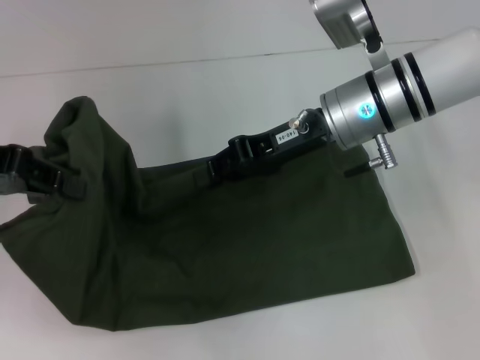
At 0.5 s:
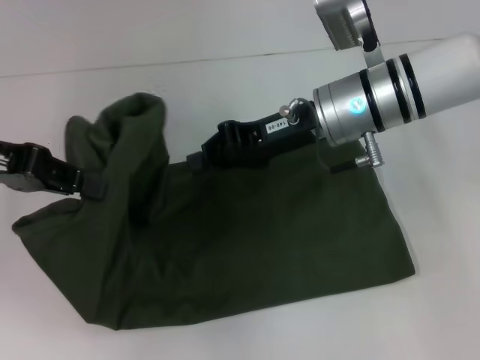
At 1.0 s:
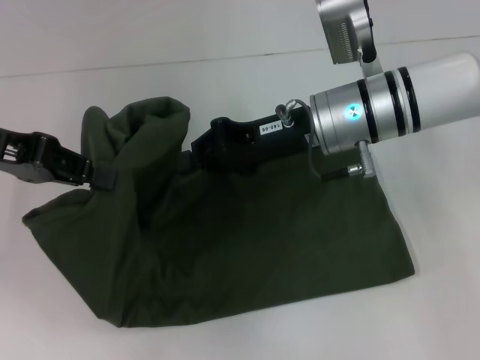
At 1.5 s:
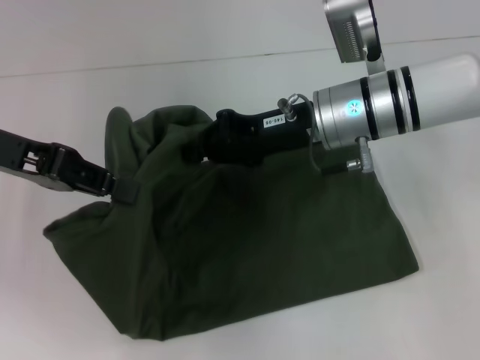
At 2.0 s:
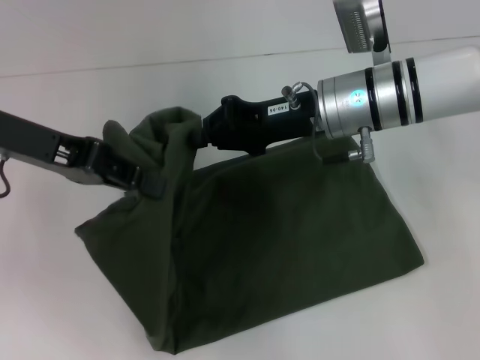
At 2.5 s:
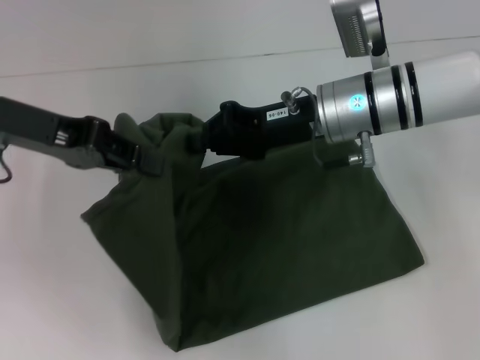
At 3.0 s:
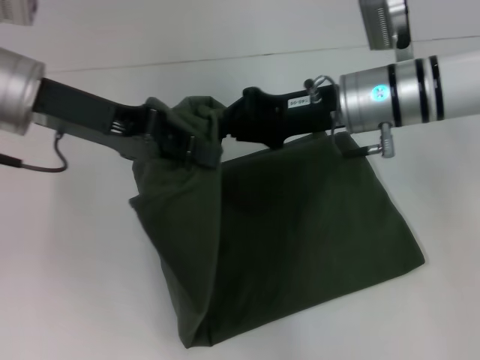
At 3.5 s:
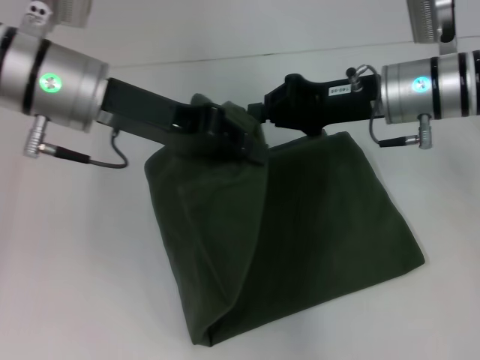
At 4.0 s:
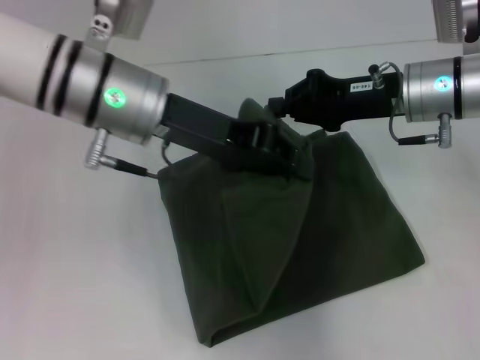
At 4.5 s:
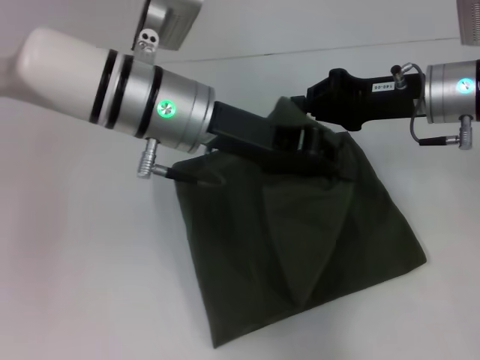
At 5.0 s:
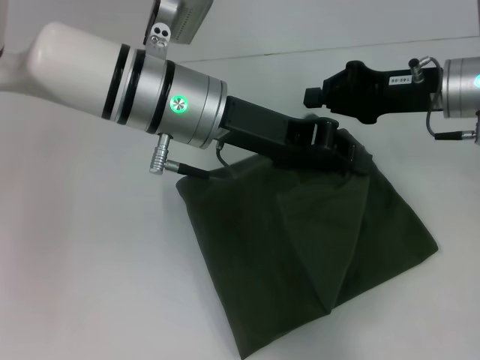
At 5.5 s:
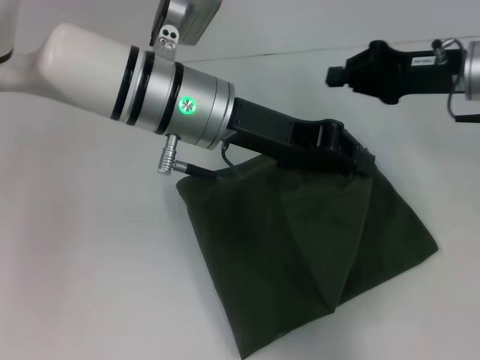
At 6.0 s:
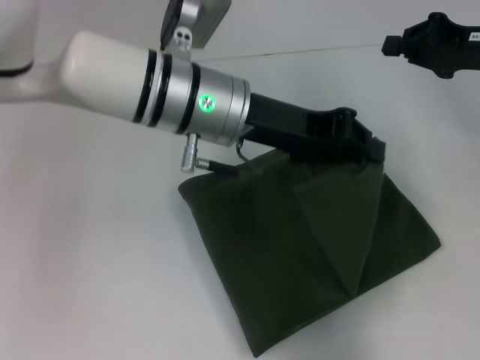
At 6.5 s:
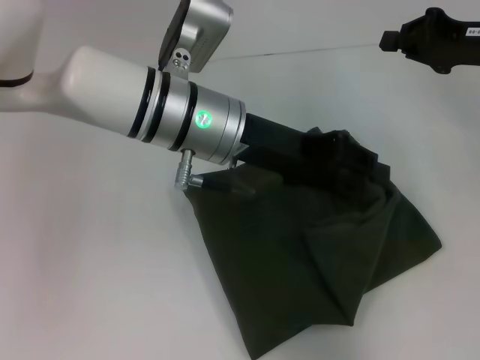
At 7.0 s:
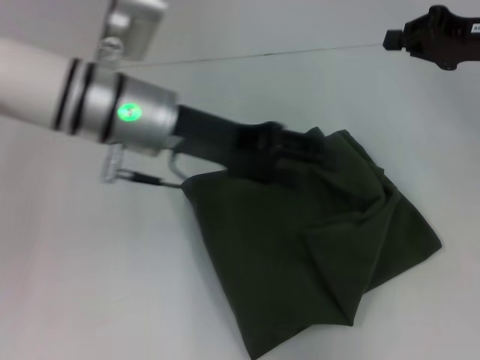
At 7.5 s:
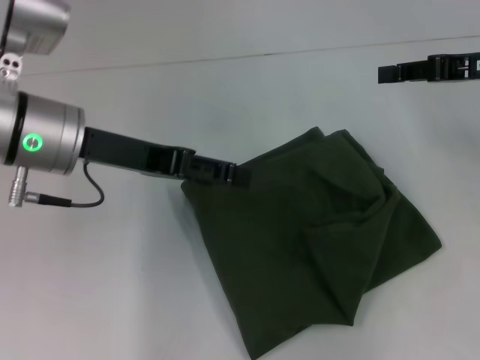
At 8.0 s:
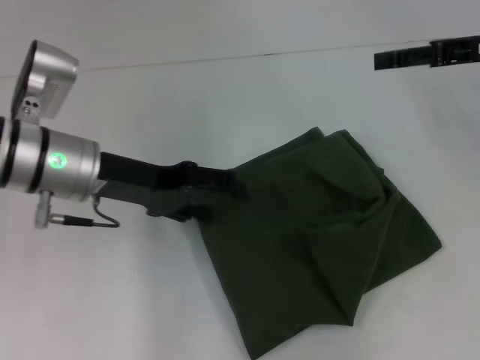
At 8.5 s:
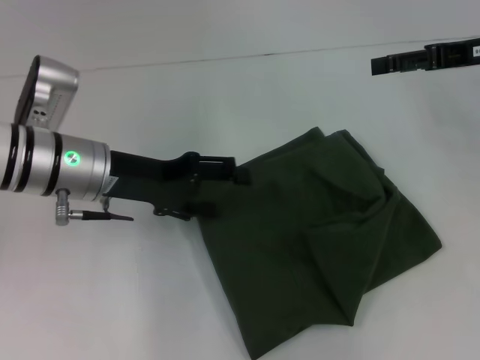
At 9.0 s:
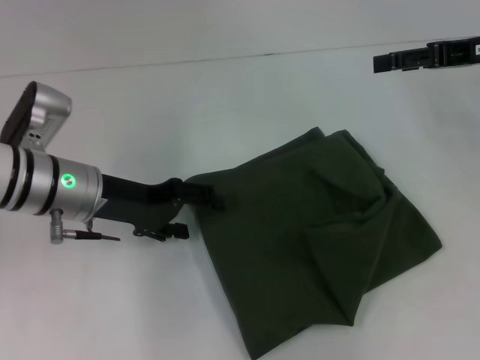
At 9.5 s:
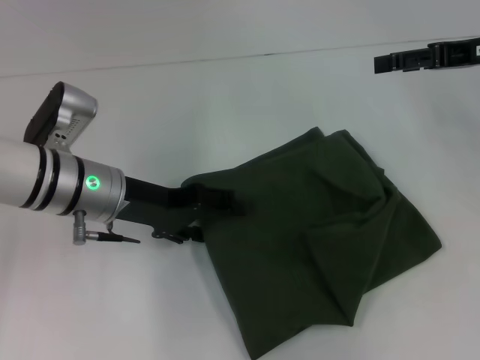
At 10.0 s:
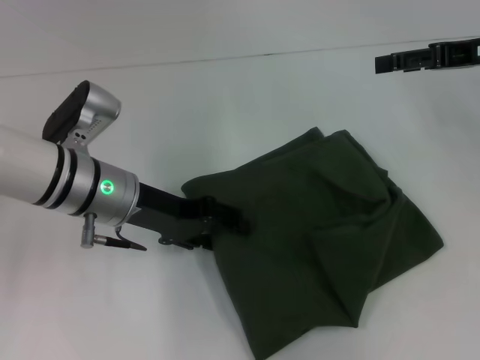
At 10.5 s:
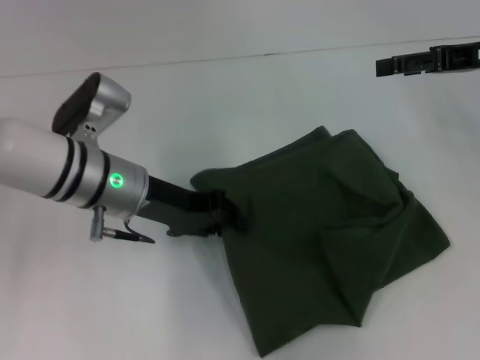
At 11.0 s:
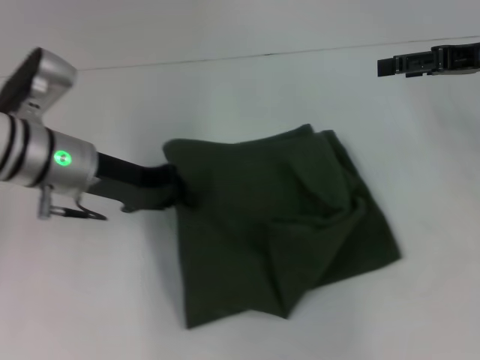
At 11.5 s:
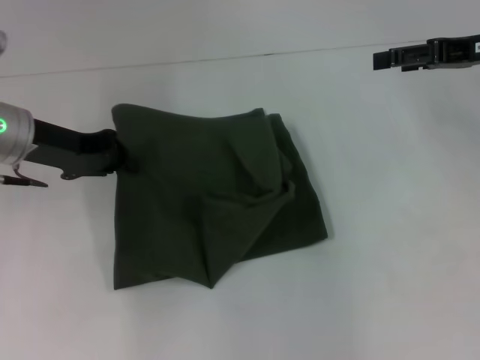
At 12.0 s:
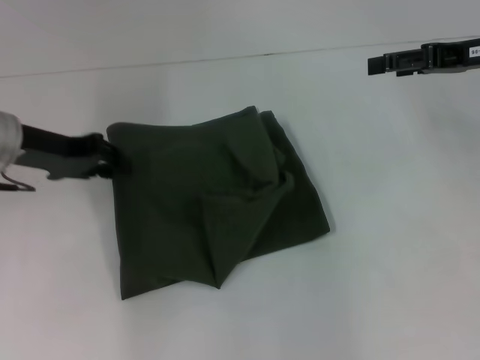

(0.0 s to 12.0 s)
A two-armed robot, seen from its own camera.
Step, 0.0 s - 6.5 s: Fold the clothes with your left hand.
0.0 s - 2.0 s: The left gripper shifts about 5 cm to the right, while the right gripper closes.
2.0 s - 4.0 s: The left gripper is displaced to the right by some 15 cm, while the right gripper travels to the right by approximately 10 cm.
4.0 s - 6.0 s: The right gripper shifts some 10 cm to the right; the left gripper goes some 5 cm to the right.
6.0 s - 8.0 s: The right gripper opens up, while the left gripper is displaced to the left by about 15 cm, and opens its fingers.
8.0 s - 10.0 s: The grippers stay close to where they were, moving slightly.
10.0 s - 12.0 s: The left gripper goes approximately 10 cm to the left, and closes.

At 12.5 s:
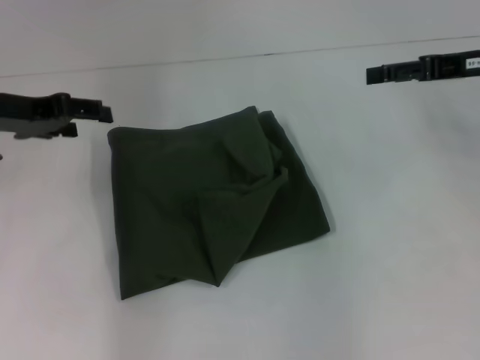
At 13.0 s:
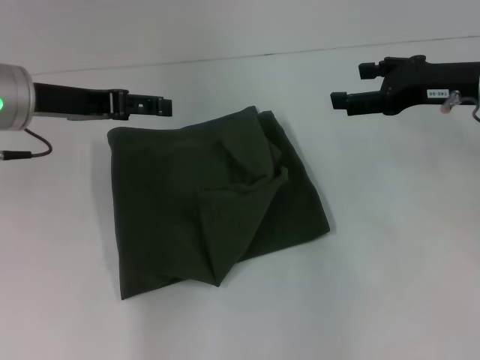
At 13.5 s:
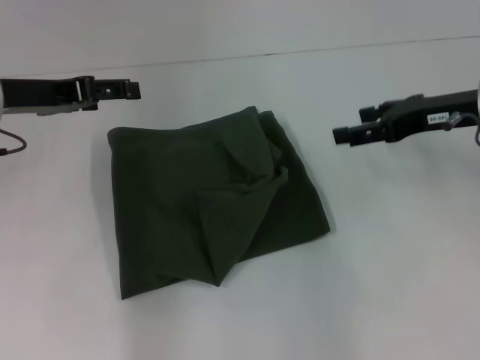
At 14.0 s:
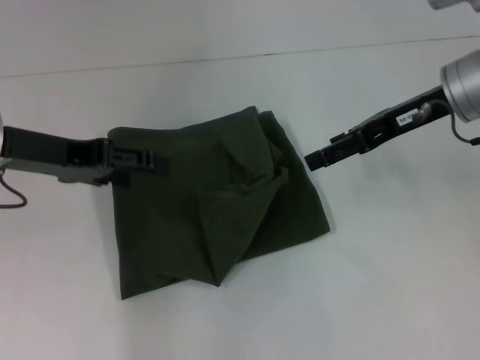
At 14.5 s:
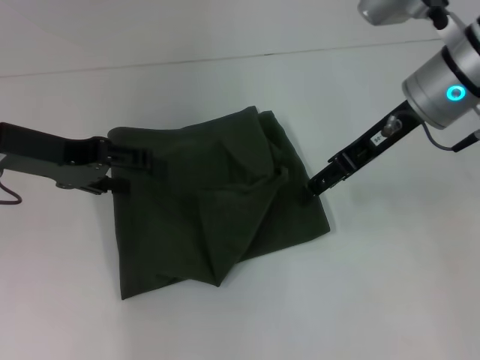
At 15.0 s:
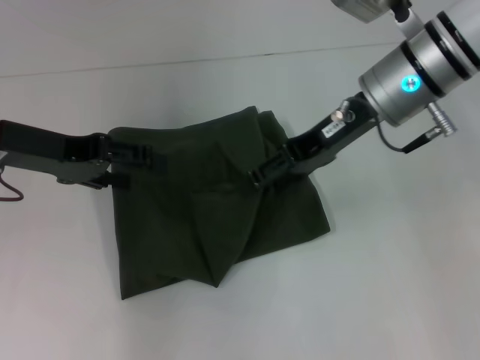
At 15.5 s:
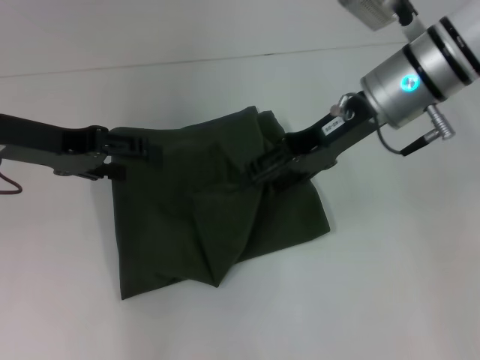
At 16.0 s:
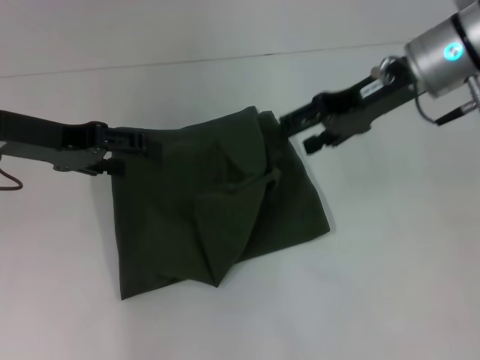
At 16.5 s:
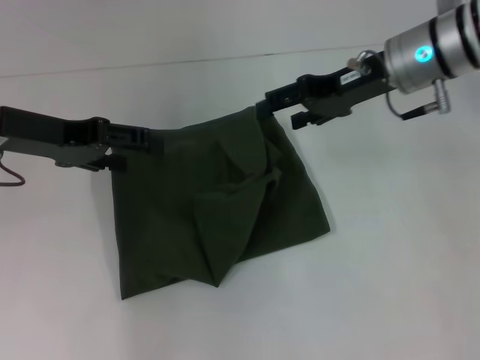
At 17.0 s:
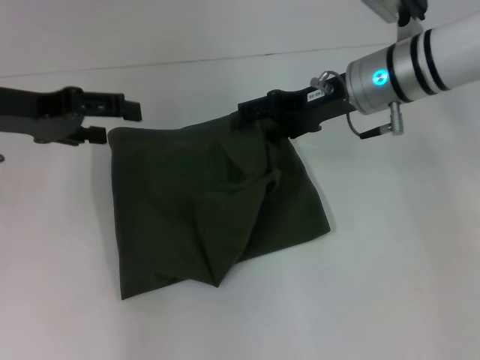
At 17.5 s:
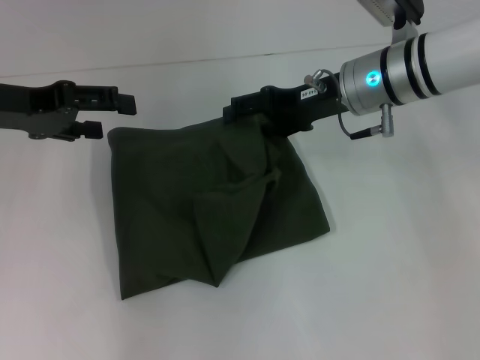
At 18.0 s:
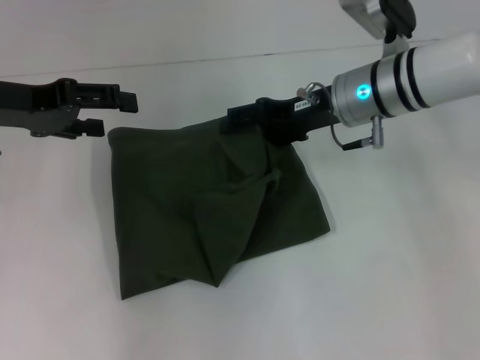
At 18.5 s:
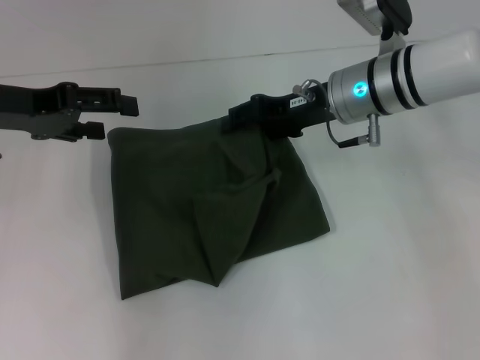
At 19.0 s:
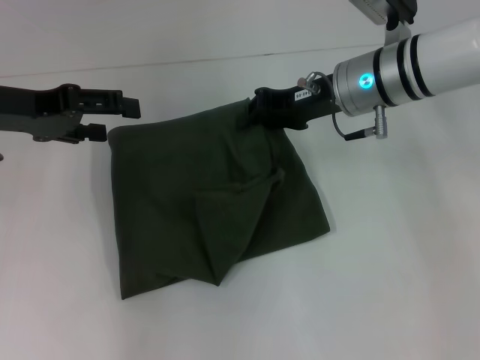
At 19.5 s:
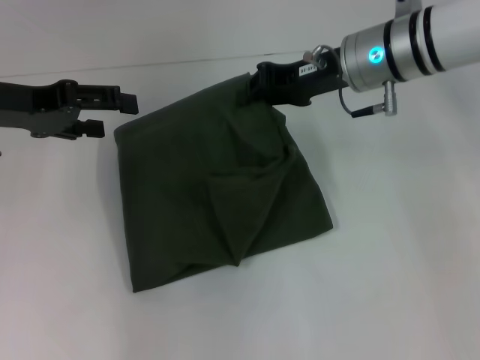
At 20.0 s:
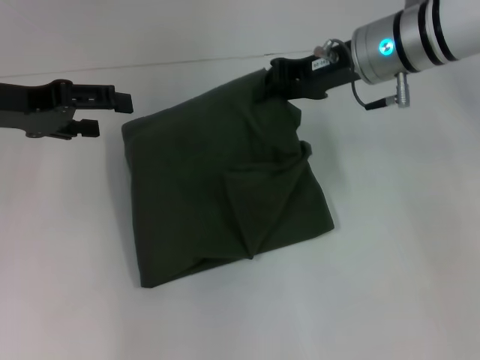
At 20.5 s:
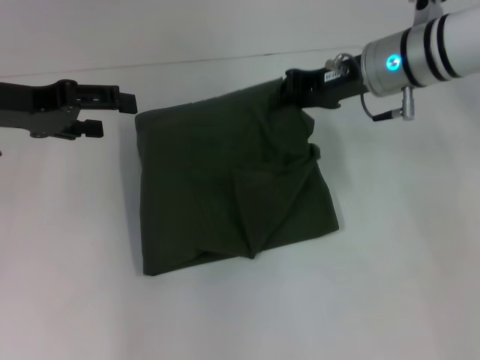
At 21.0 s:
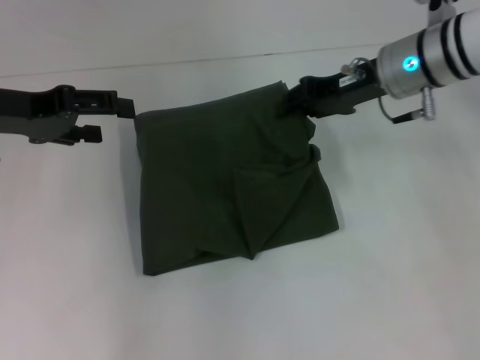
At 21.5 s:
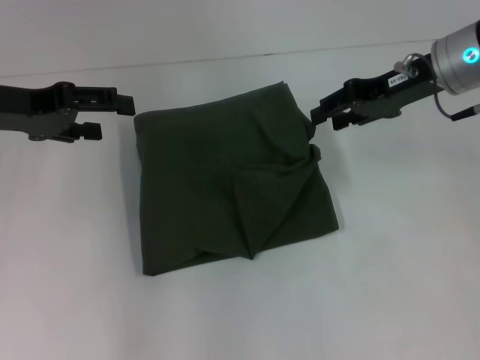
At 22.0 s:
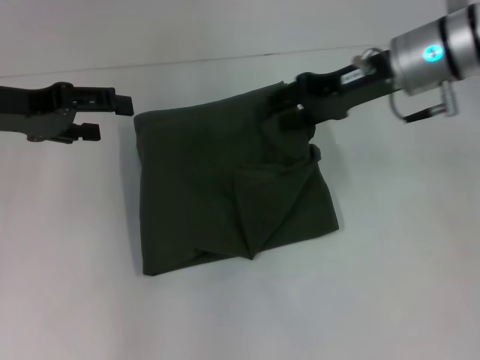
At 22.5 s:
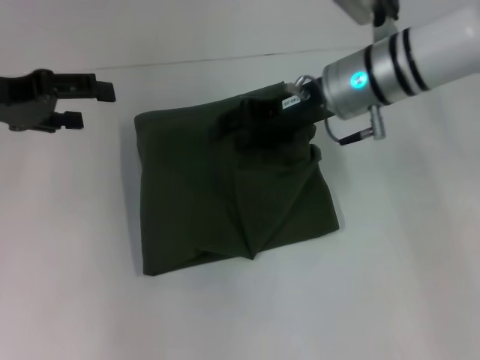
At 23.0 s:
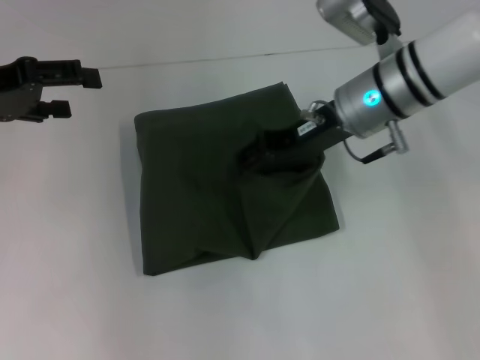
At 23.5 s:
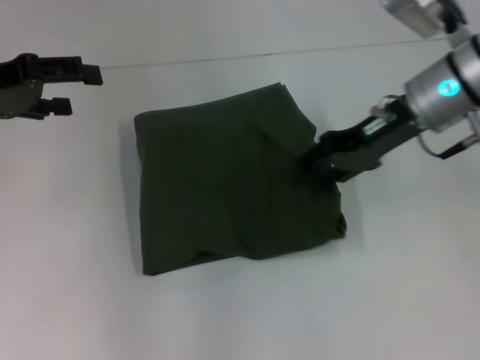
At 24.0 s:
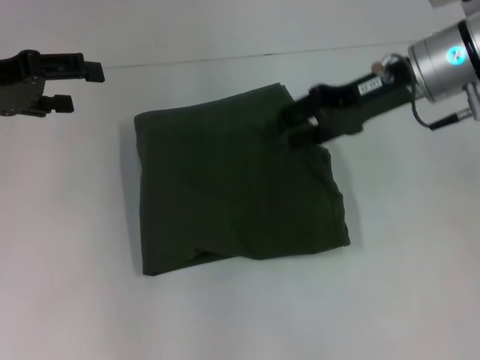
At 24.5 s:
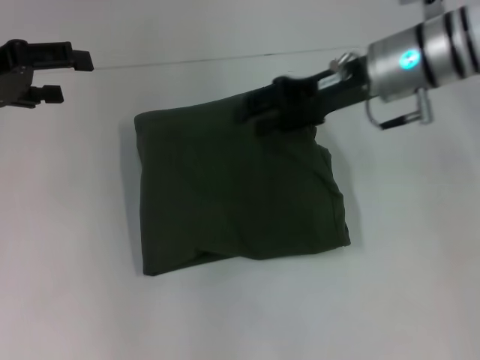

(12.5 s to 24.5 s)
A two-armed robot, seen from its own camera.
12.5 s - 14.5 s: The right gripper shifts approximately 10 cm to the left. The left gripper opens up.
16.5 s - 18.5 s: The right gripper changes place by some 5 cm.
18.5 s - 20.5 s: The right gripper closes its fingers.
20.5 s - 22.5 s: The right gripper opens its fingers.

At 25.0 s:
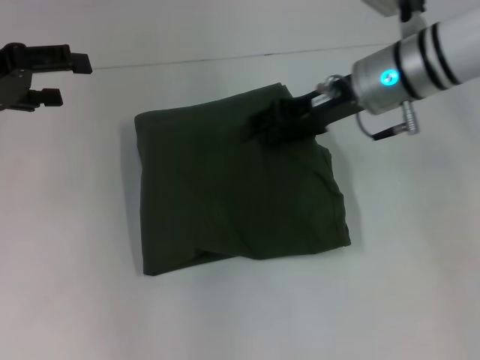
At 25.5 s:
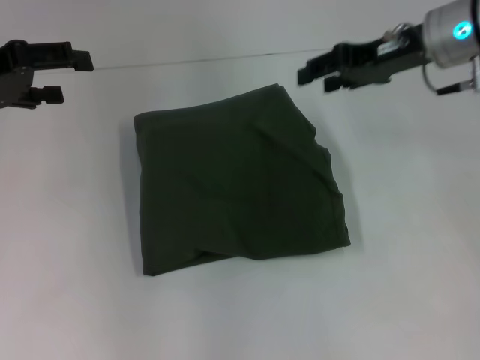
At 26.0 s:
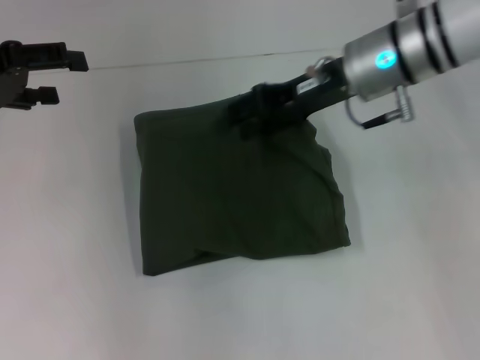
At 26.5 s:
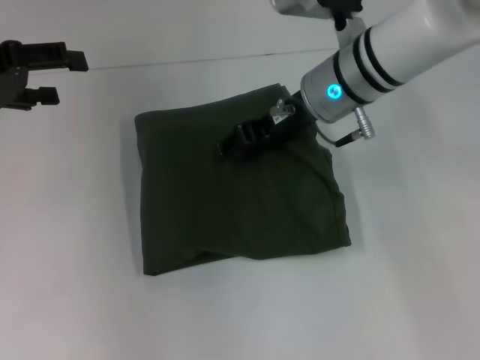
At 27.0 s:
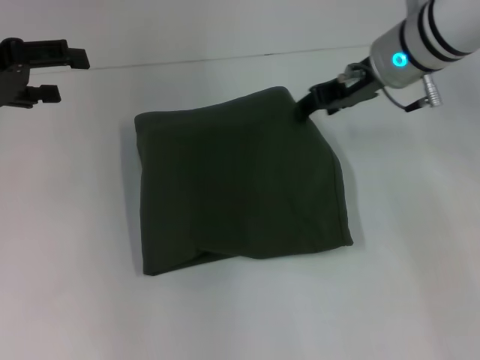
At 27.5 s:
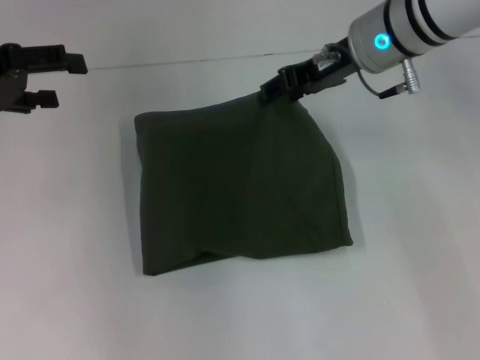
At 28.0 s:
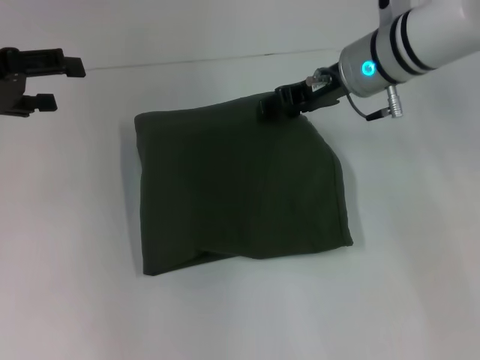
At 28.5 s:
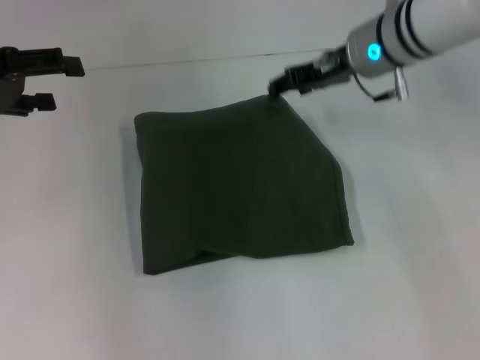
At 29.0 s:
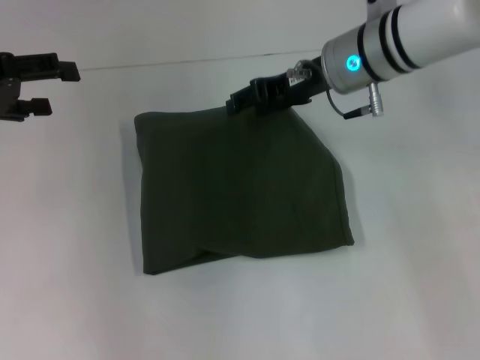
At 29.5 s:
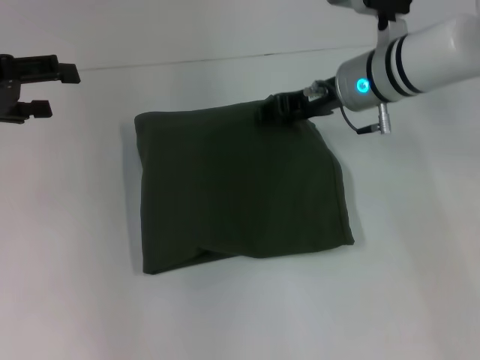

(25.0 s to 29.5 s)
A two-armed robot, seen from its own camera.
25.0 s - 27.0 s: The right gripper goes left and right, some 10 cm each way, reversing 2 times.
27.0 s - 29.5 s: The right gripper changes place by some 5 cm.
